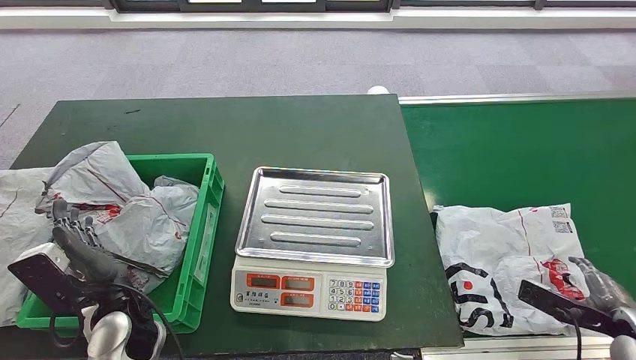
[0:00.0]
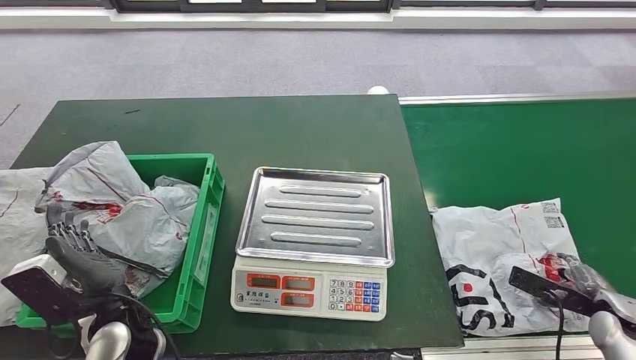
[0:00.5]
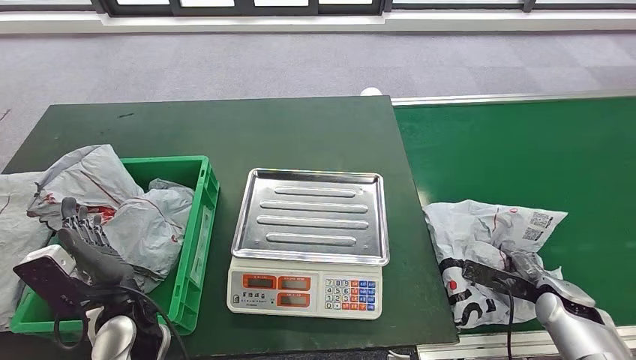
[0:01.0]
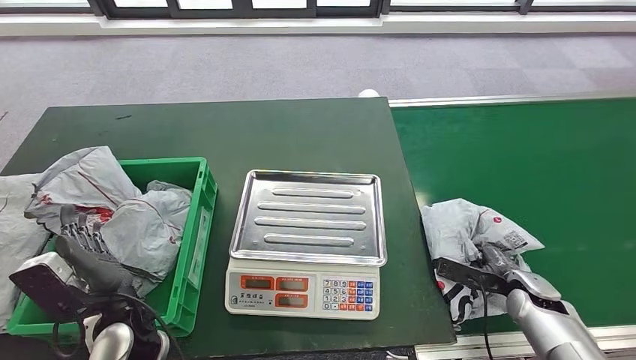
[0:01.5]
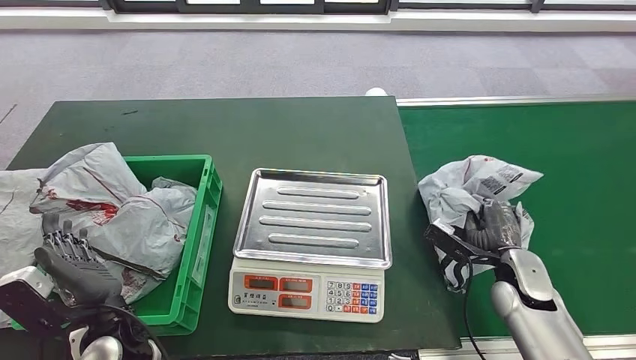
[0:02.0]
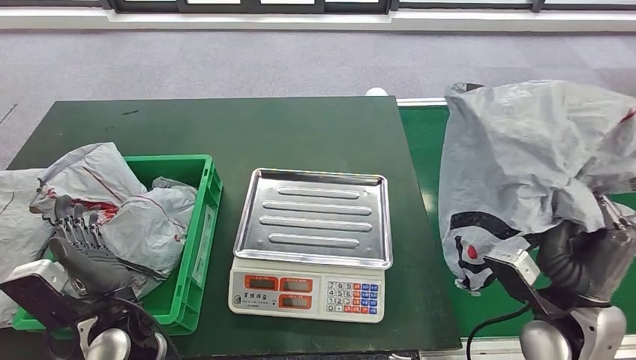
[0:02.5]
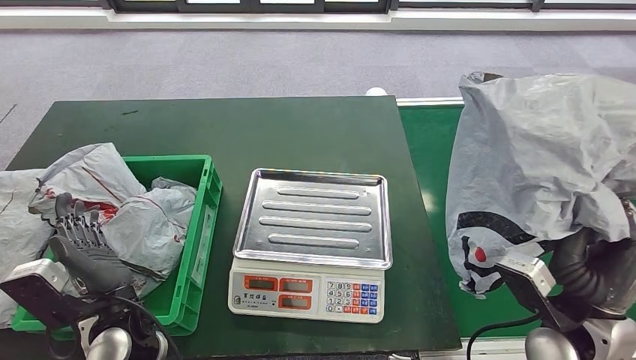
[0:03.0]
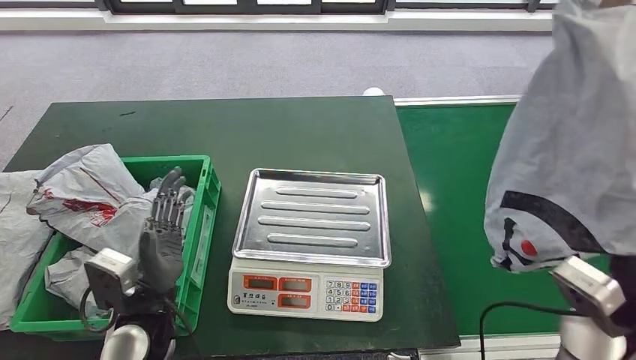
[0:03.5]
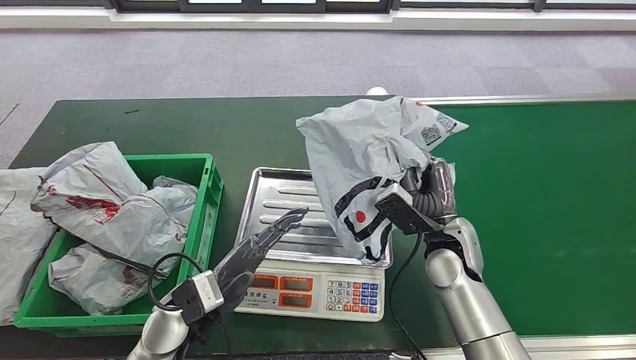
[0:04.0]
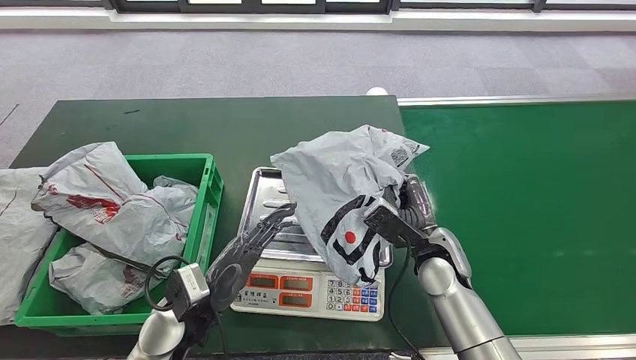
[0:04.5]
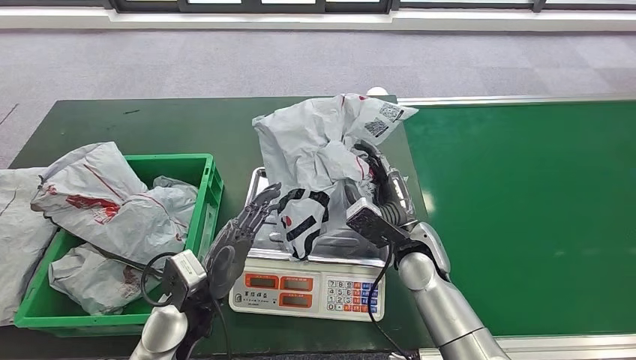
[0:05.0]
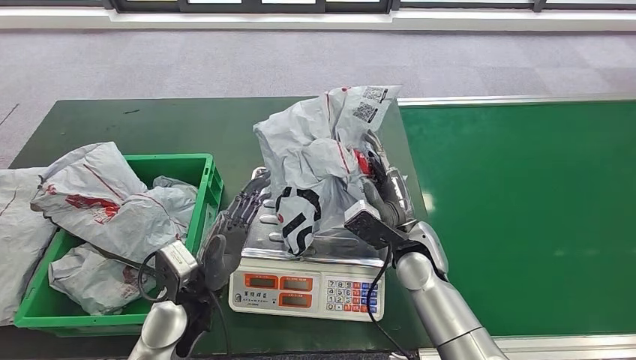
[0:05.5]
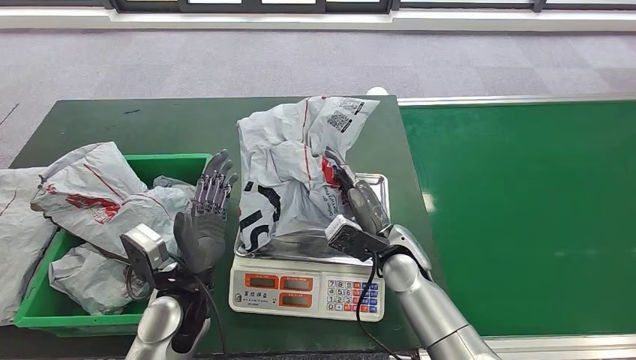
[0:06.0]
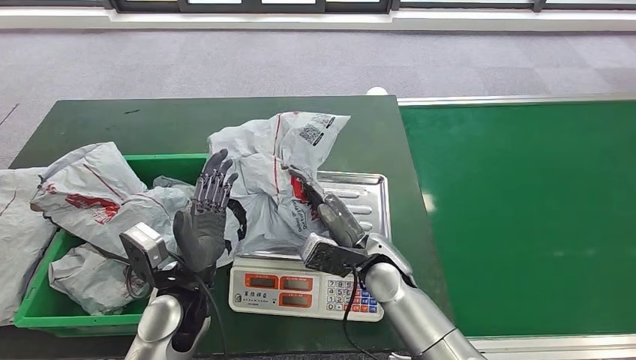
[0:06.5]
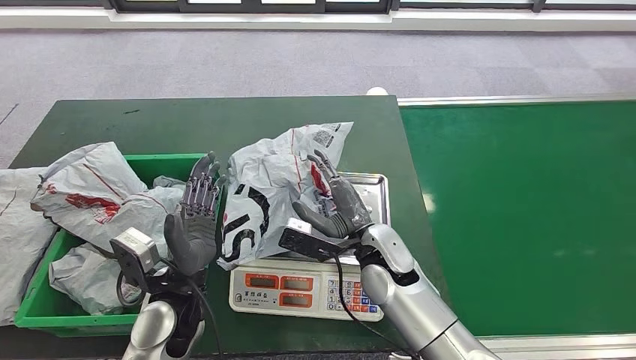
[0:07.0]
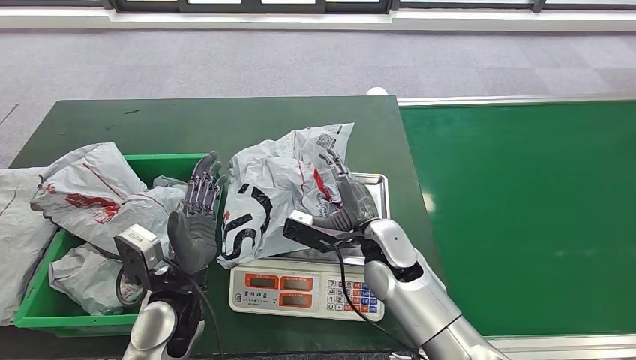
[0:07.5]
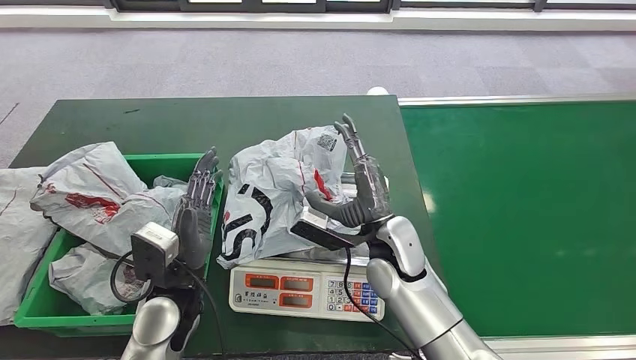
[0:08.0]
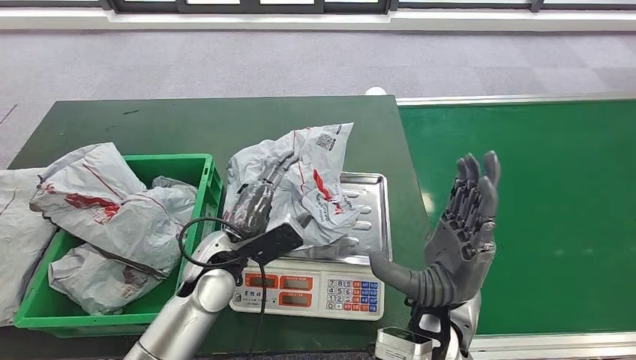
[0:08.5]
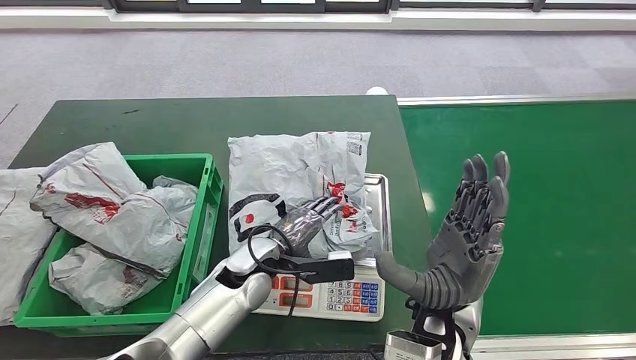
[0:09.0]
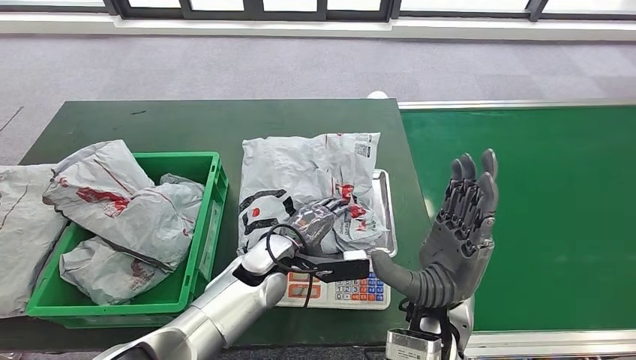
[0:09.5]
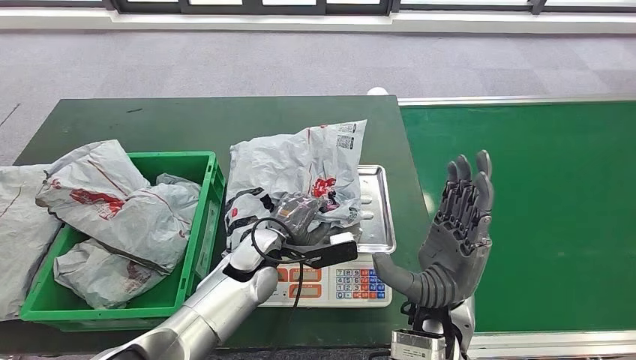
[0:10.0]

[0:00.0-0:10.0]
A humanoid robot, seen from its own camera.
Step, 0:00.0 to 0:02.0: Pick up the parcel from the conveyor belt.
Step, 0:02.5 to 0:05.5: Place the parcel onto the inbound machine.

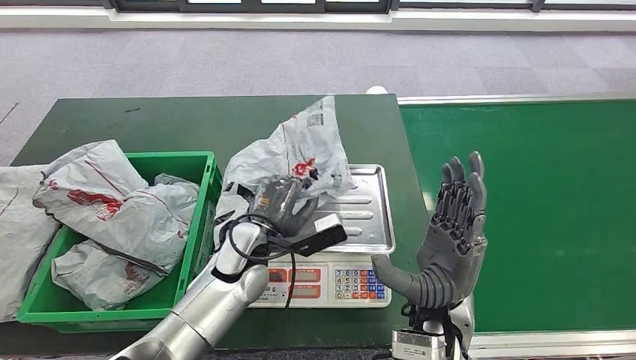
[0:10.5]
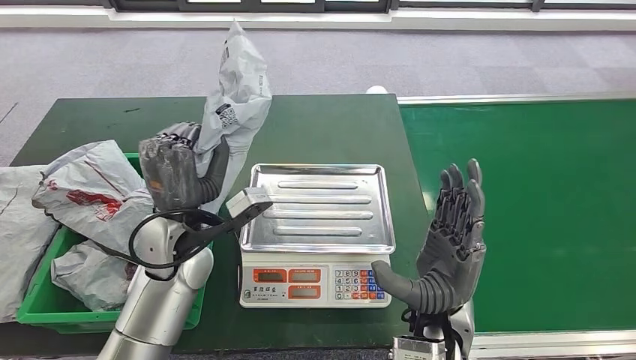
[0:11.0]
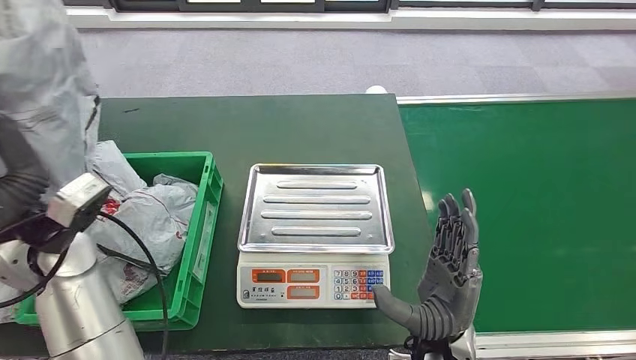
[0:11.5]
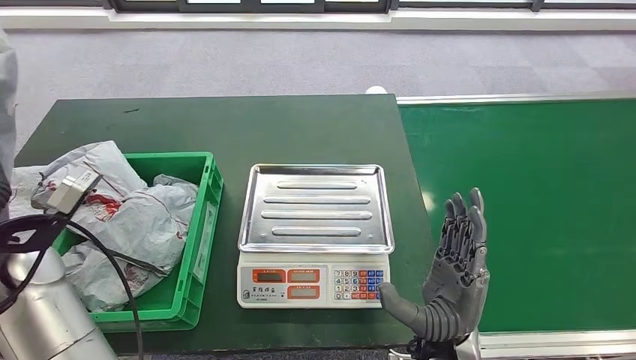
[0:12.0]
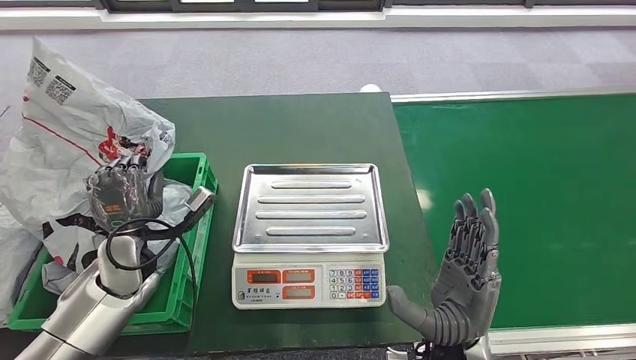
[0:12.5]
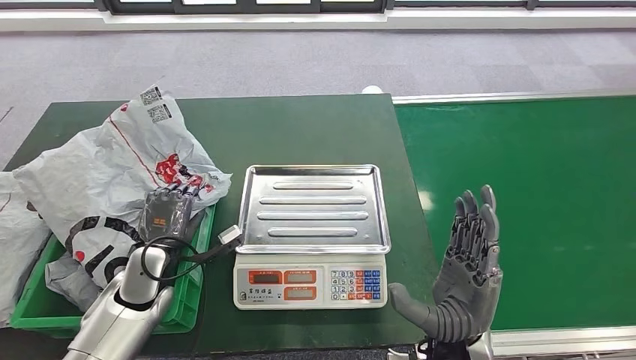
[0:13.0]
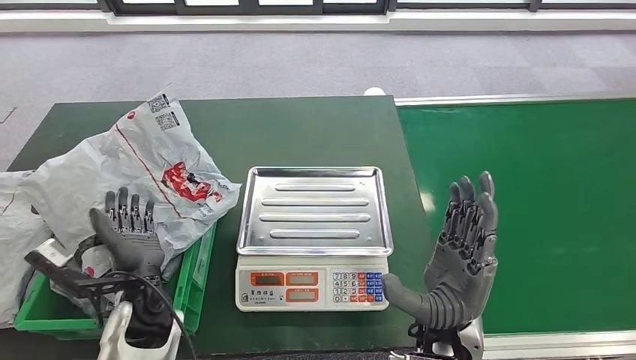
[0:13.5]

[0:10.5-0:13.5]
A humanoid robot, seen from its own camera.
Step, 0:11.5 to 0:13.5: Place the parcel into the delivery box.
